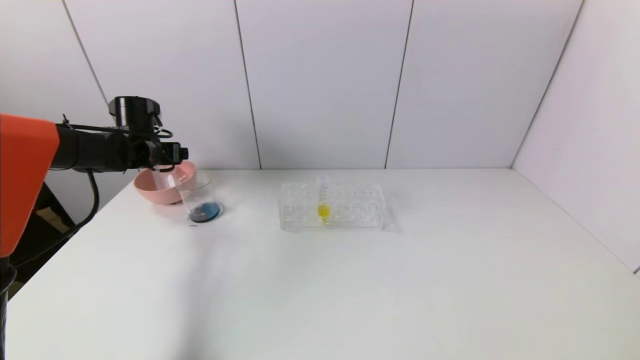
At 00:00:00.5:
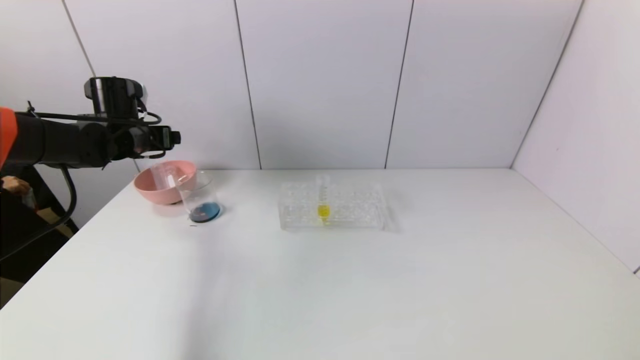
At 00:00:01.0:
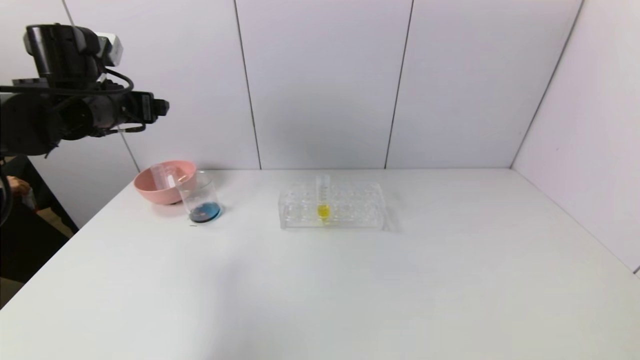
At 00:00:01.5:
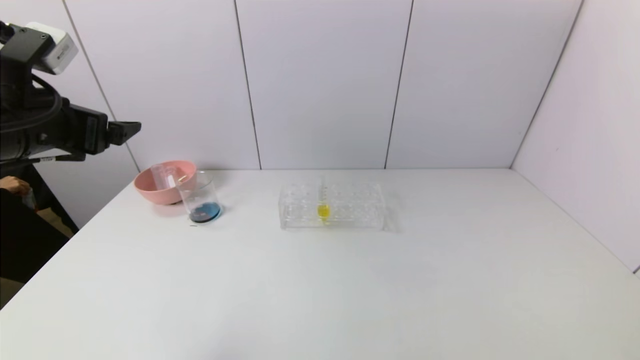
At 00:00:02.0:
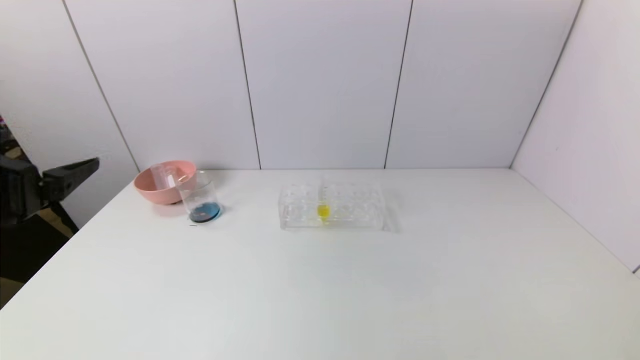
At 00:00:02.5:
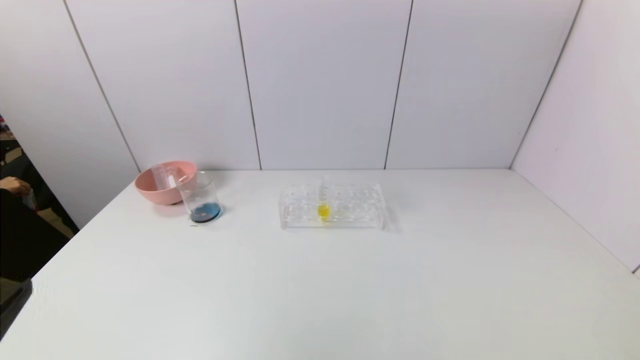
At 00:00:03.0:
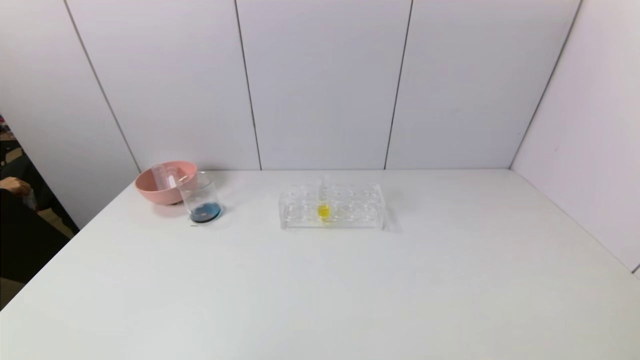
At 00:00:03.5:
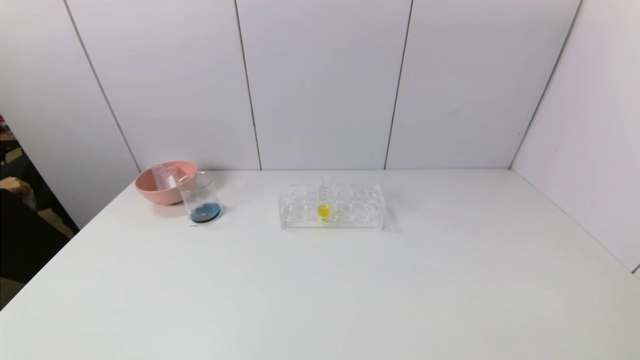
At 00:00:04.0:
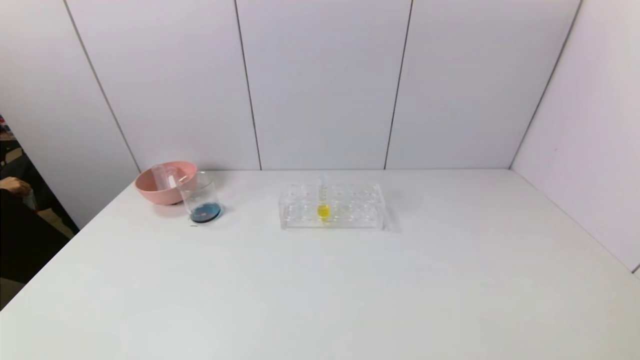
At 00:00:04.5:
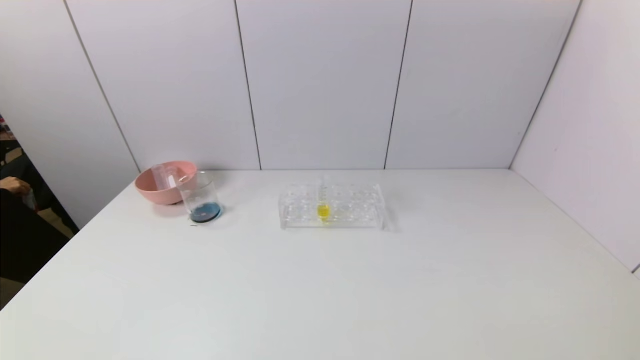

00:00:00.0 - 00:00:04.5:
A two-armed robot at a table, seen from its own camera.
Task of the whole recording: pick up the test tube with red pigment and the test tube with blue pigment by grippers and pour them into the container.
00:00:00.0 - 00:00:02.0: The left gripper heads backward, covering about 30 cm.
00:00:02.0 - 00:00:04.5: The left gripper goes about 25 cm downward and backward.
